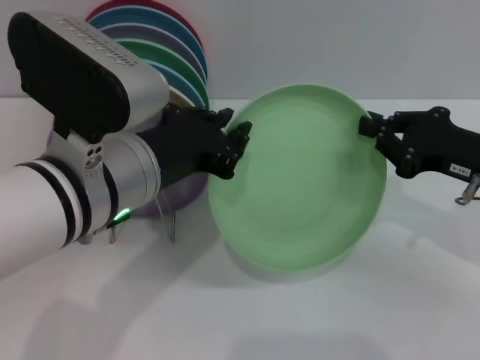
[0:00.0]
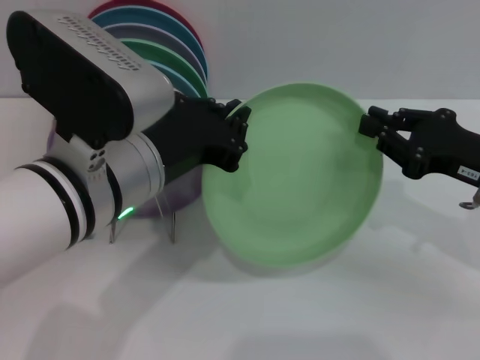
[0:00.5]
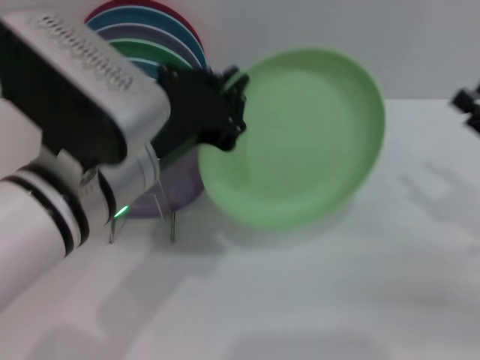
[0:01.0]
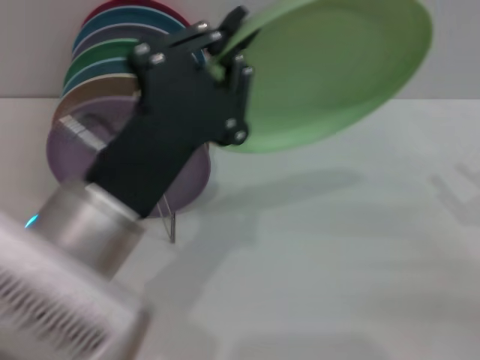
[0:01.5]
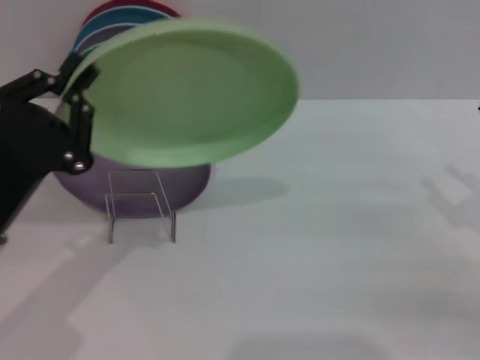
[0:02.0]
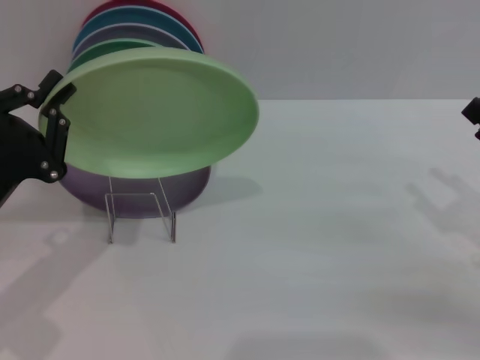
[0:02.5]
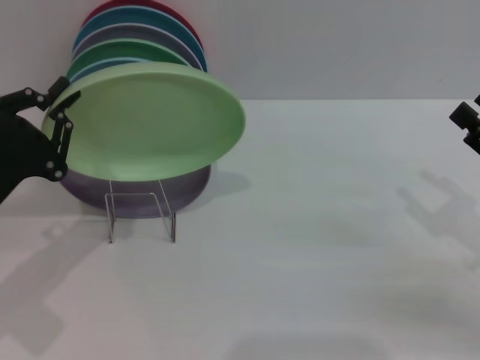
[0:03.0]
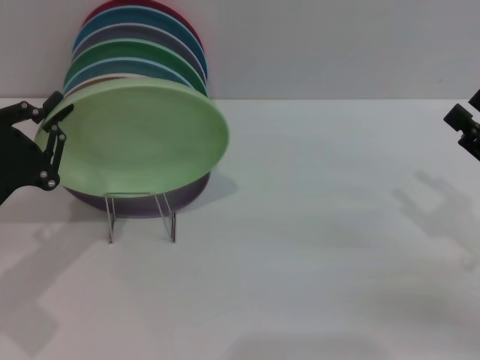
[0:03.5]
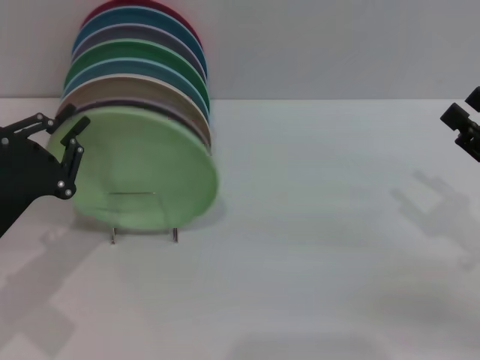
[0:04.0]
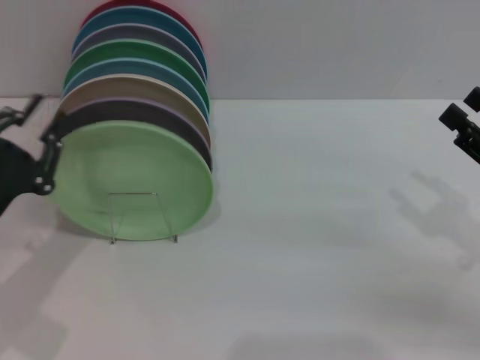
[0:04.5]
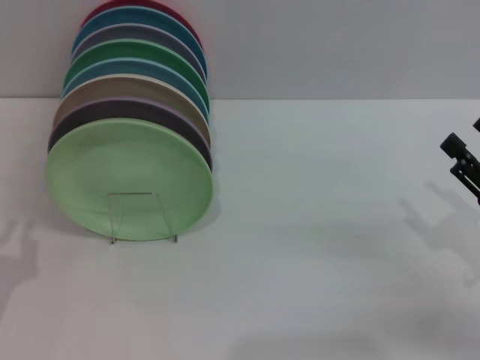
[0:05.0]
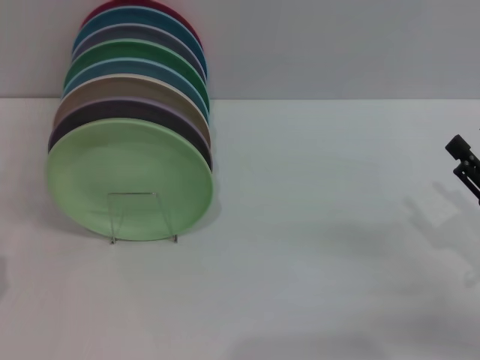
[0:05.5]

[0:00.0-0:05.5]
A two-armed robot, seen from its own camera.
Task of the whole recording: Grip the plate with one hand, pass it to the other, then set it on the shelf.
Step, 0:02.0 to 0:04.5: Place the plate on the shelf with the left gripper.
0:00.0 to 0:02.0: The left gripper heads to the left and downward, covering roughly 15 cm, and closes its fingers. Meanwhile the right gripper is displaced to the right and backward by some 10 cm, and opens its fingers.
0:02.0 to 0:03.5: The left gripper moves to the left, approximately 5 cm.
0:03.5 to 0:05.5: The left gripper moves backward and downward, roughly 15 cm.
